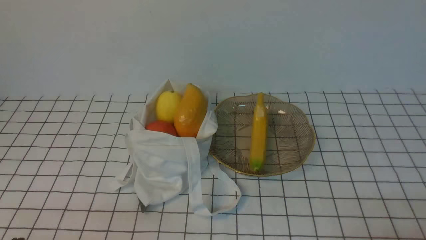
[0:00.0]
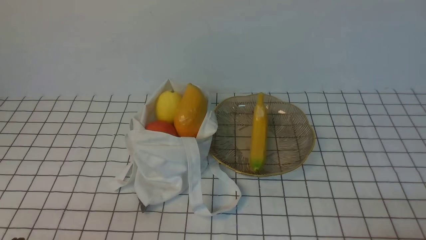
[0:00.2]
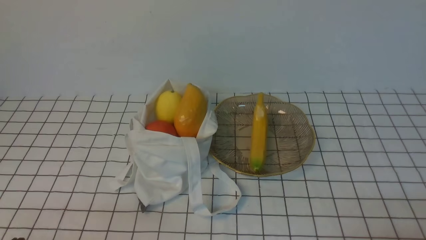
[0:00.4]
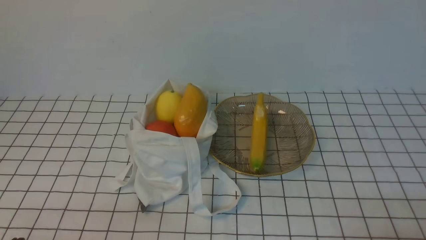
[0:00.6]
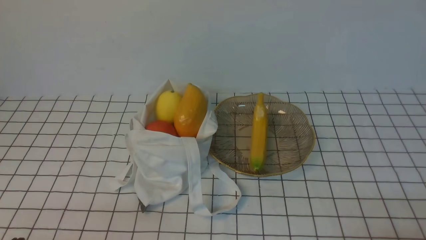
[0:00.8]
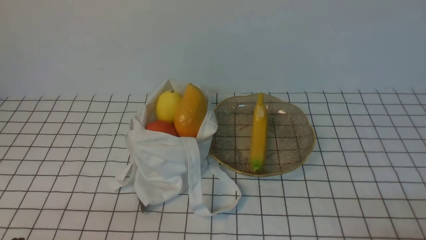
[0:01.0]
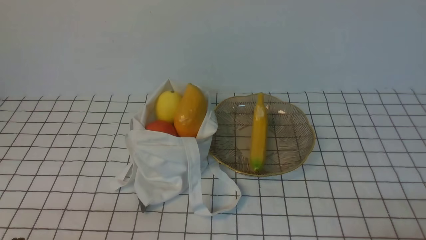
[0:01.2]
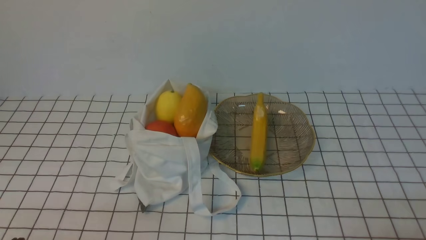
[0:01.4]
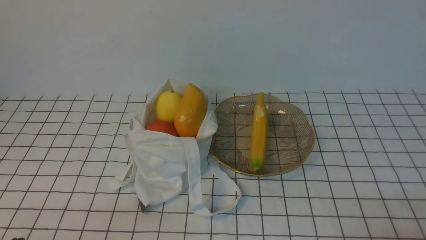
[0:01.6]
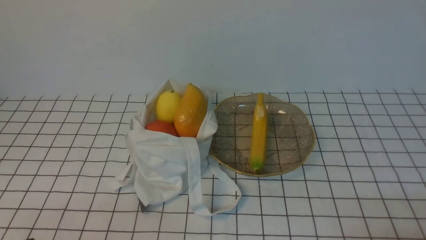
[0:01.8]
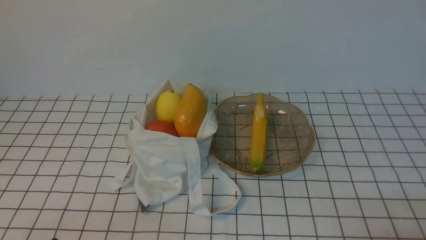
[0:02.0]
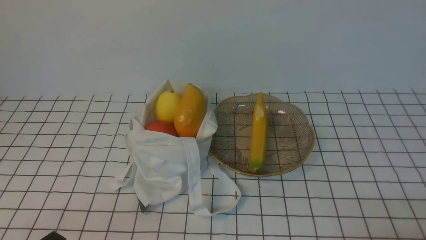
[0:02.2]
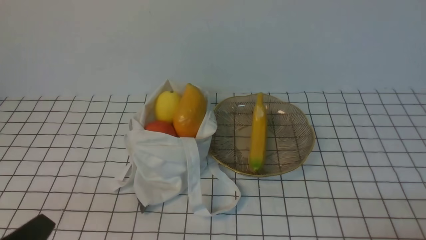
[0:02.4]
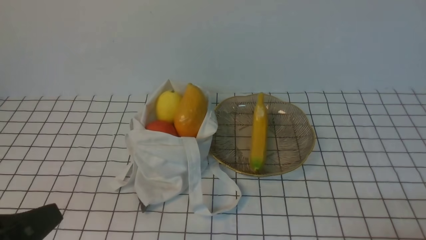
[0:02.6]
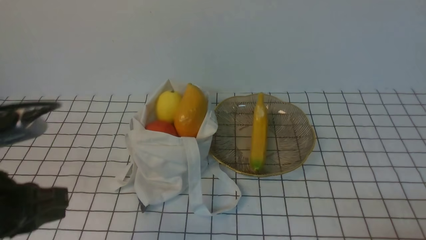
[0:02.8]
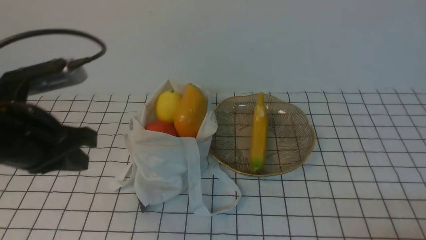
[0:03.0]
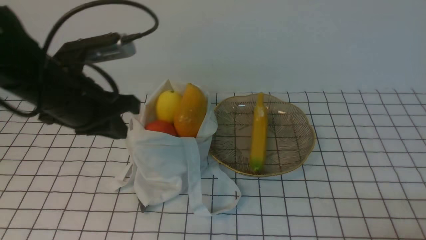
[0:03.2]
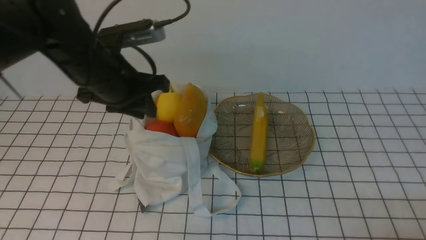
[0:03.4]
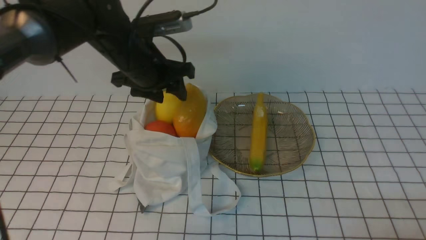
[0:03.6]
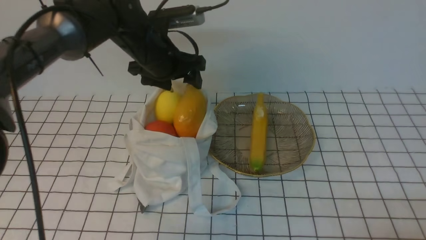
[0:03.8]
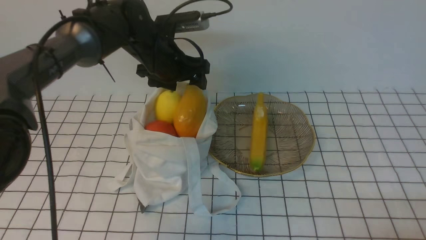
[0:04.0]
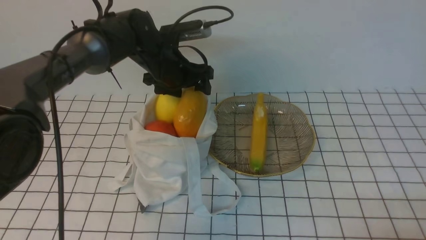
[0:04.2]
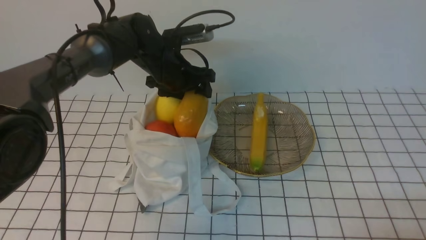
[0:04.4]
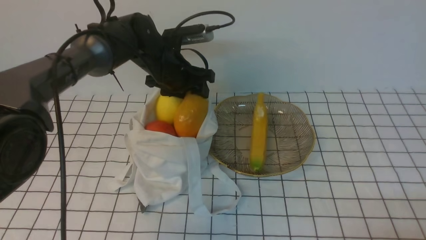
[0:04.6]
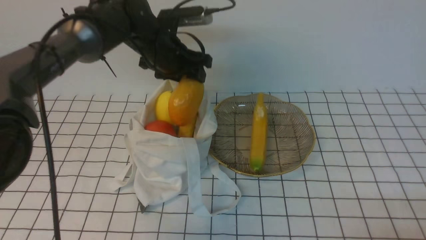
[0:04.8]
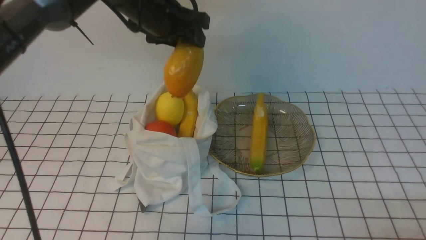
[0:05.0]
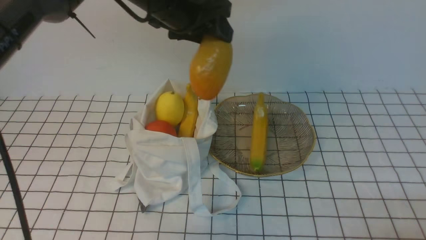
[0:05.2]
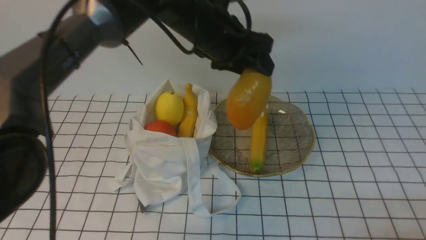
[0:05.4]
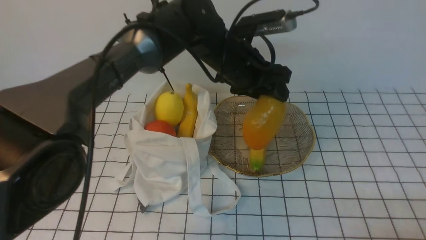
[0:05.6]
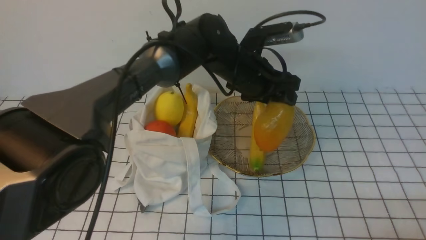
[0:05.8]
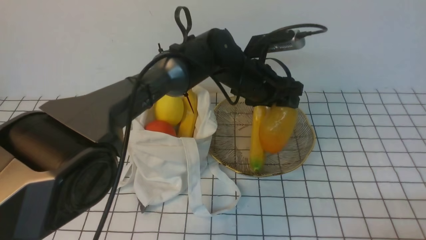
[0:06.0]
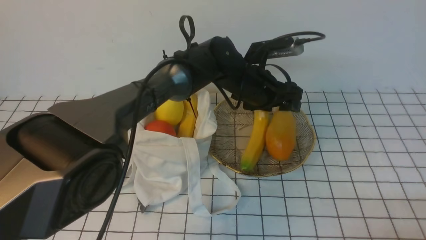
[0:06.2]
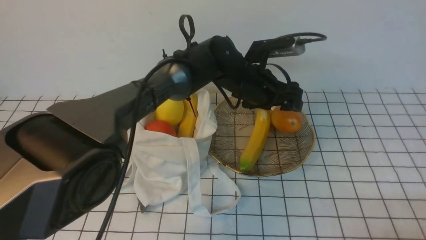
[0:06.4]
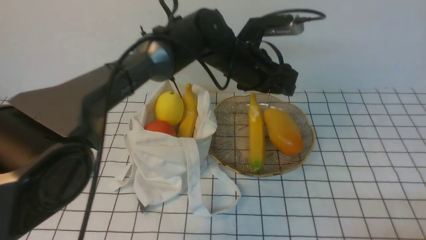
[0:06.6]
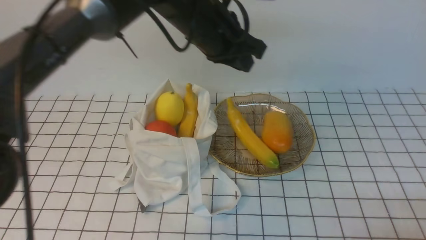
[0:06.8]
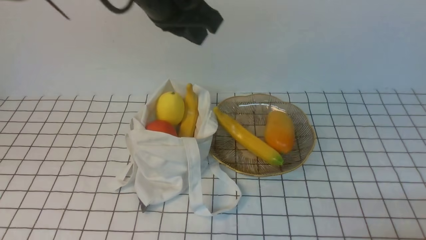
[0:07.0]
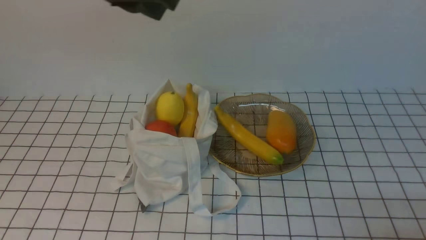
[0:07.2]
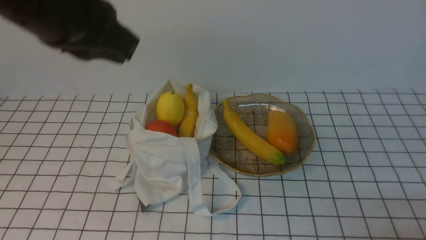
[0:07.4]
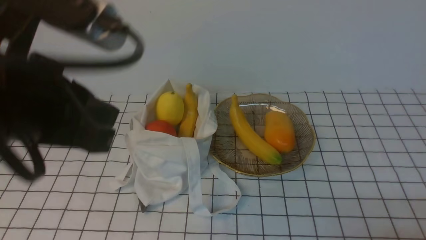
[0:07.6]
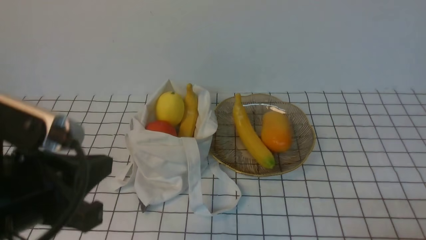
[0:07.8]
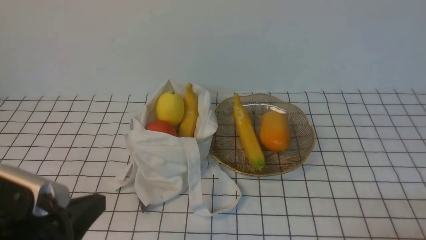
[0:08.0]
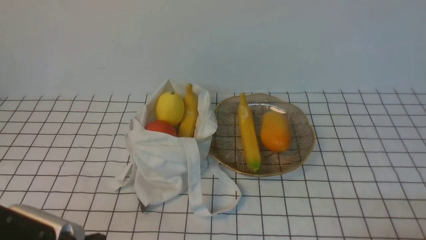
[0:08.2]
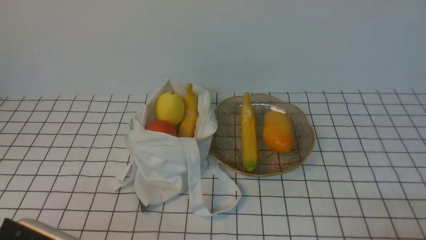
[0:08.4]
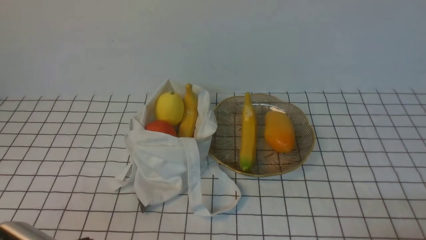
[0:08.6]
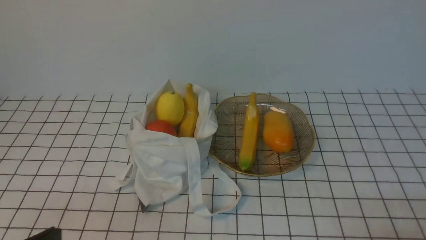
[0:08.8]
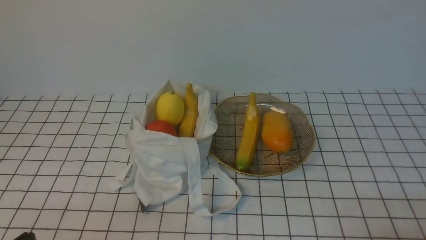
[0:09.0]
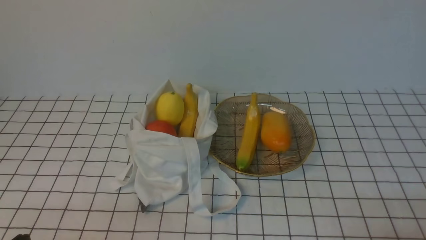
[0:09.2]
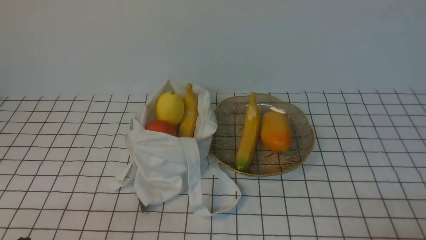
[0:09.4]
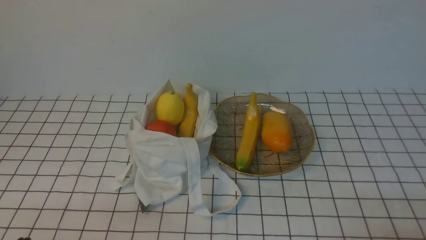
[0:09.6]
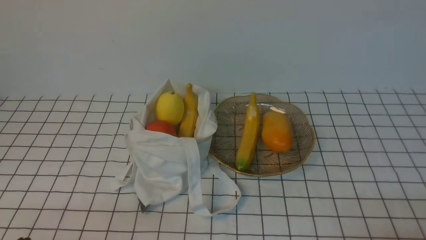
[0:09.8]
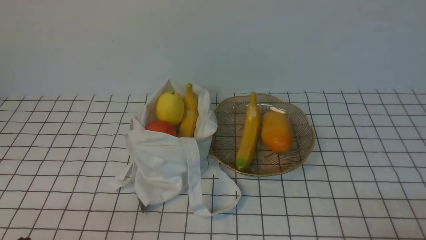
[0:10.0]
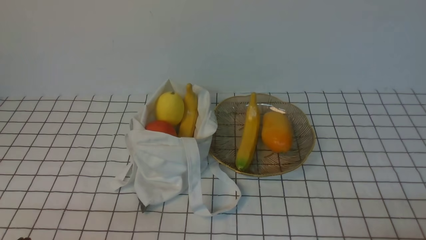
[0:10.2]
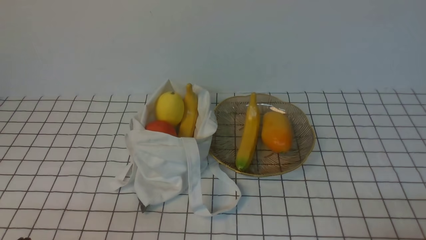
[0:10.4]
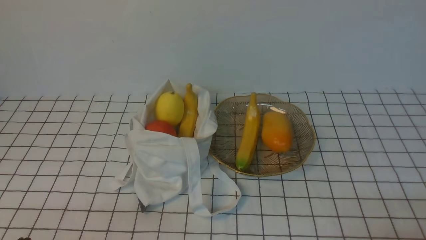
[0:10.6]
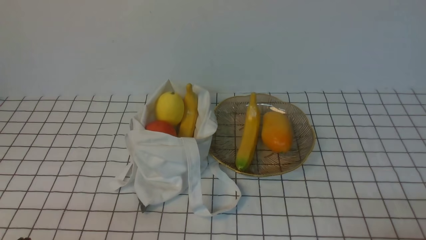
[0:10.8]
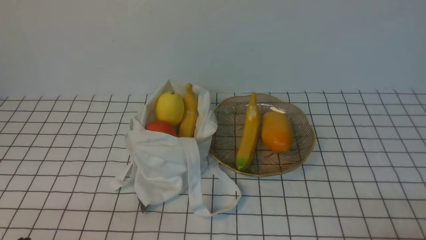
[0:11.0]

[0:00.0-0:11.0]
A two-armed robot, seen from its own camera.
Step, 0:00.0 to 0:04.6: use the left arm to grab a mango from the bag.
Step, 0:05.0 to 0:06.4: use the left arm to put the mango into the empty plate on the right.
0:01.6 to 0:03.2: The left gripper moves forward and upward, approximately 25 cm.
0:03.2 to 0:04.8: The left gripper shifts some 20 cm forward and to the right, and opens its fingers.
0:04.8 to 0:06.2: The left gripper travels to the right by some 15 cm.
0:06.2 to 0:07.8: The left gripper travels backward, to the left and upward by about 40 cm, and closes.
0:07.8 to 0:09.4: The left gripper is displaced downward, backward and to the left by about 20 cm.
0:09.4 to 0:11.0: Both grippers stay put.
